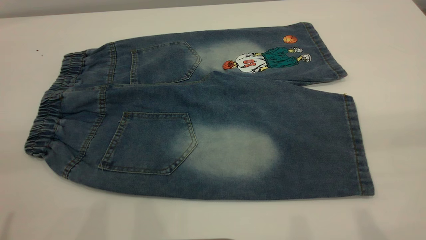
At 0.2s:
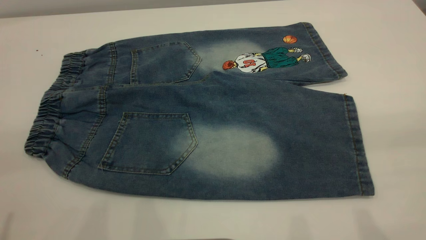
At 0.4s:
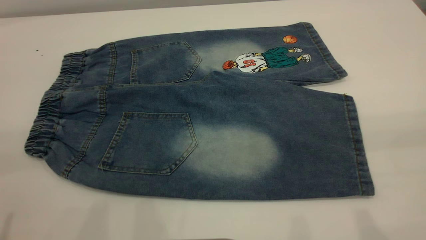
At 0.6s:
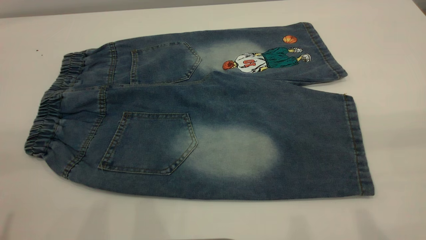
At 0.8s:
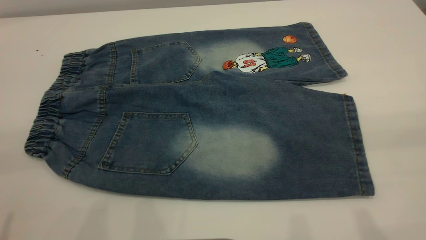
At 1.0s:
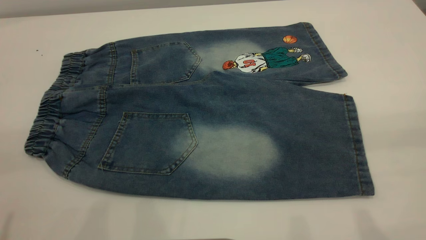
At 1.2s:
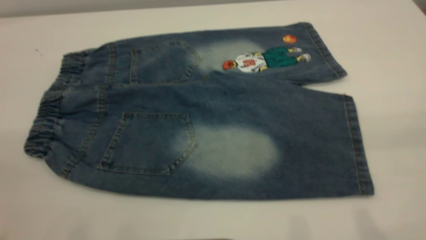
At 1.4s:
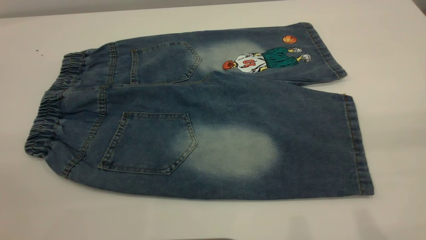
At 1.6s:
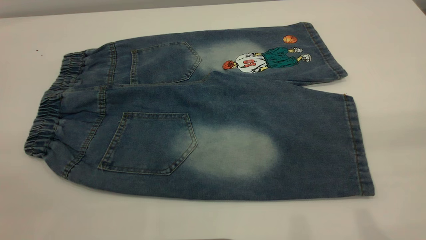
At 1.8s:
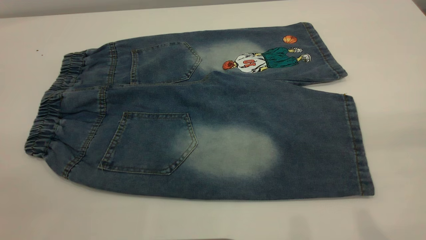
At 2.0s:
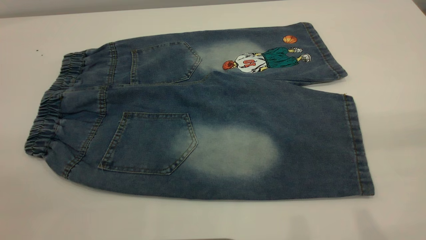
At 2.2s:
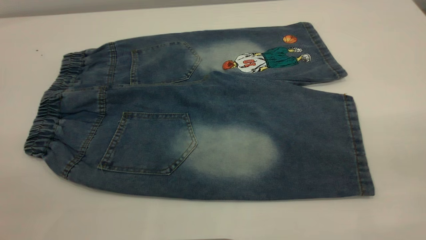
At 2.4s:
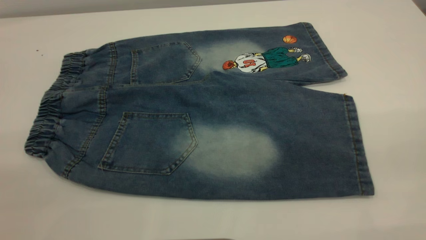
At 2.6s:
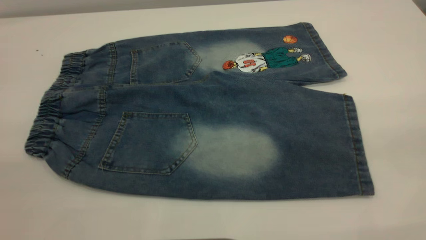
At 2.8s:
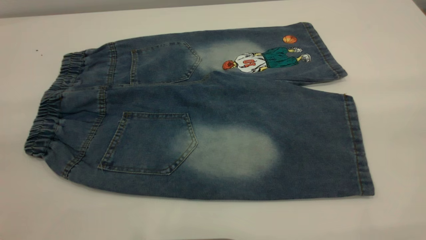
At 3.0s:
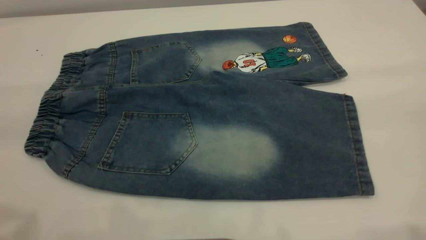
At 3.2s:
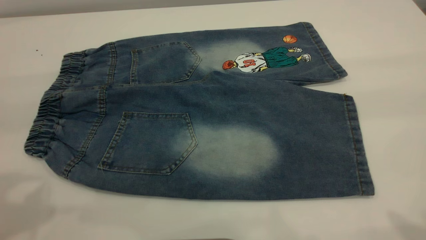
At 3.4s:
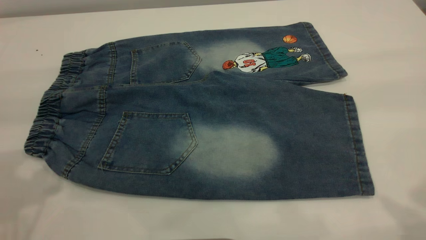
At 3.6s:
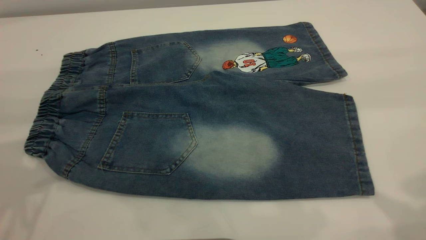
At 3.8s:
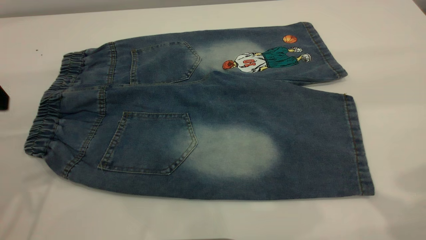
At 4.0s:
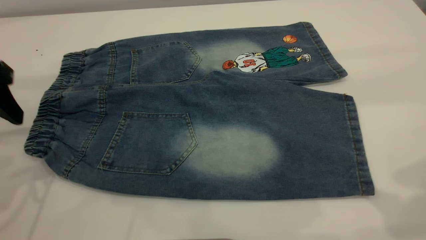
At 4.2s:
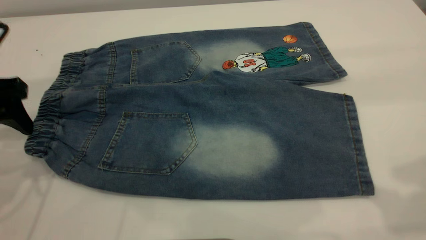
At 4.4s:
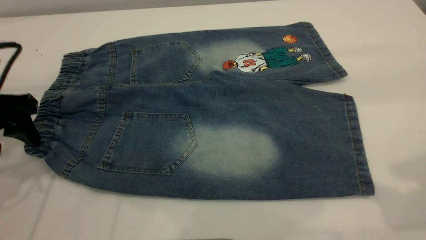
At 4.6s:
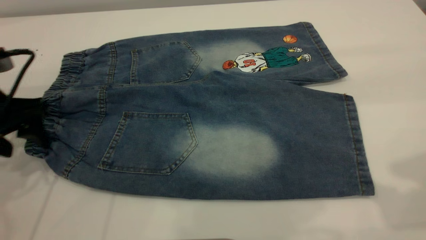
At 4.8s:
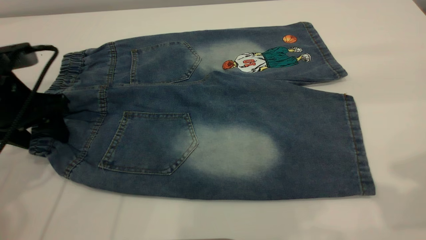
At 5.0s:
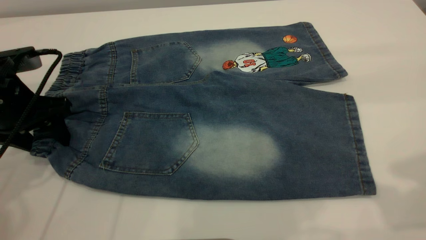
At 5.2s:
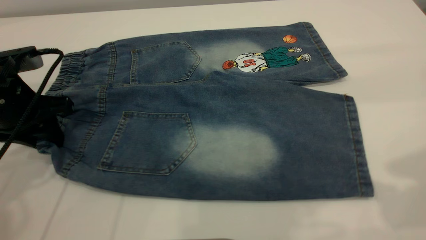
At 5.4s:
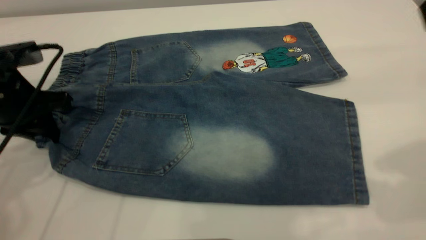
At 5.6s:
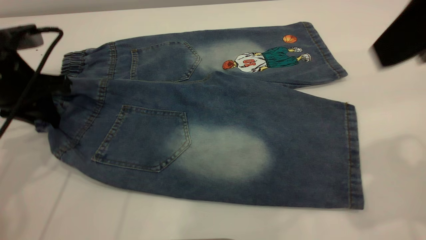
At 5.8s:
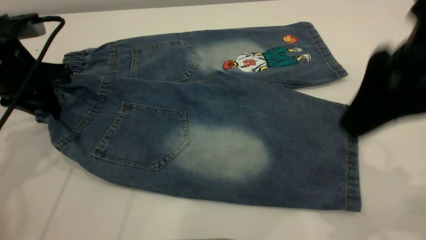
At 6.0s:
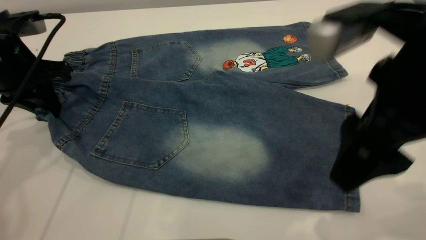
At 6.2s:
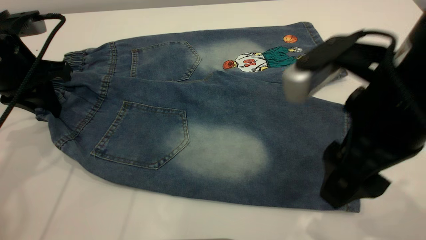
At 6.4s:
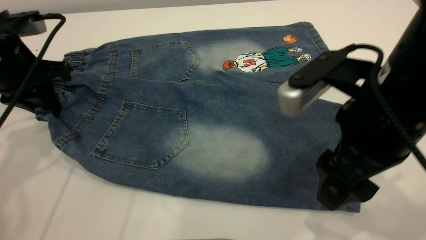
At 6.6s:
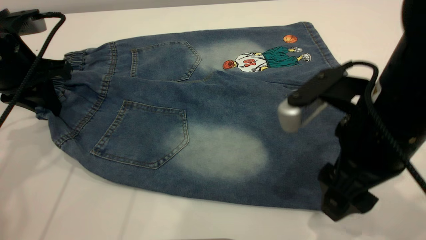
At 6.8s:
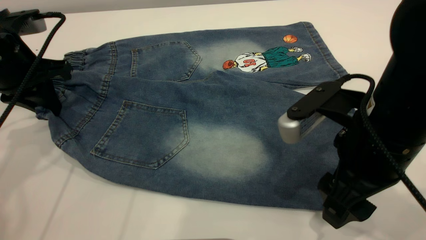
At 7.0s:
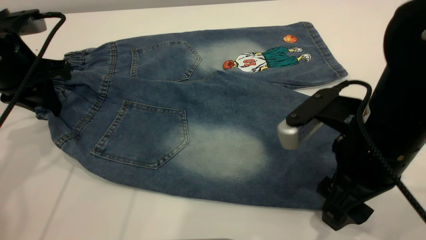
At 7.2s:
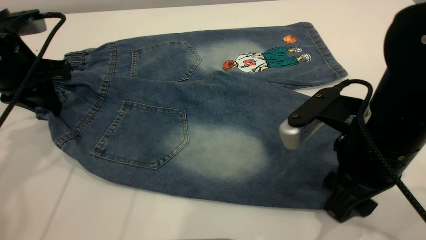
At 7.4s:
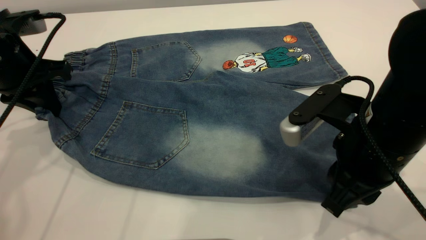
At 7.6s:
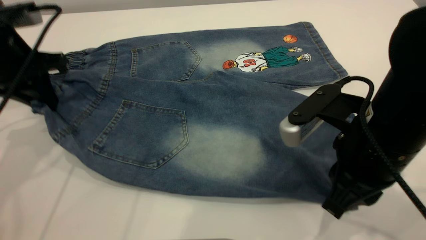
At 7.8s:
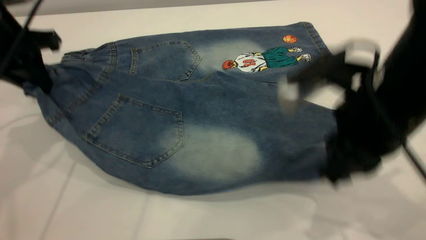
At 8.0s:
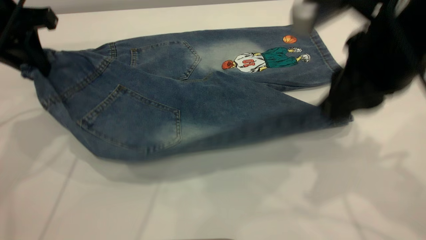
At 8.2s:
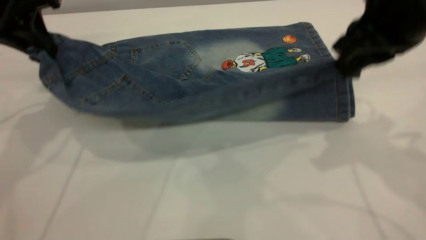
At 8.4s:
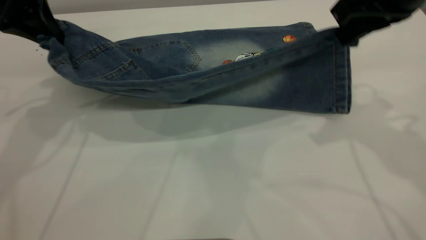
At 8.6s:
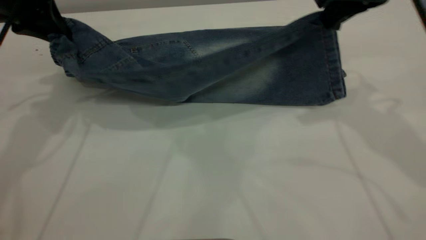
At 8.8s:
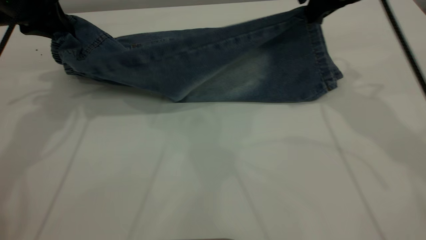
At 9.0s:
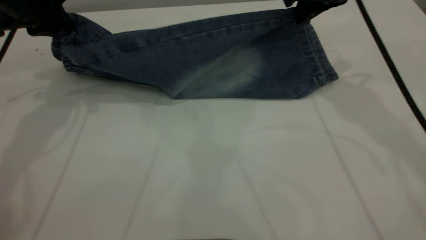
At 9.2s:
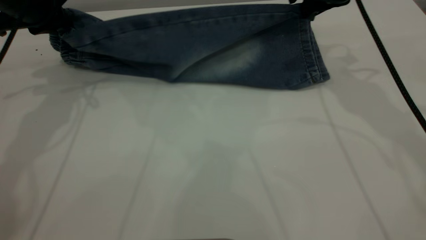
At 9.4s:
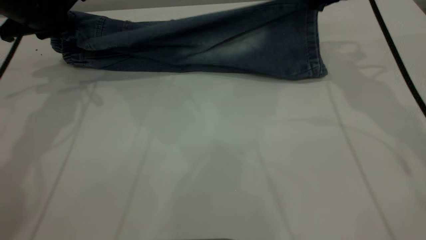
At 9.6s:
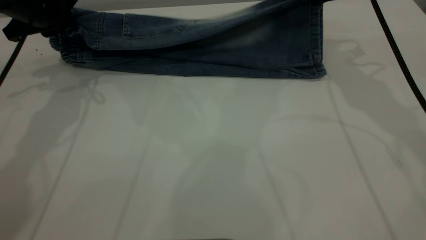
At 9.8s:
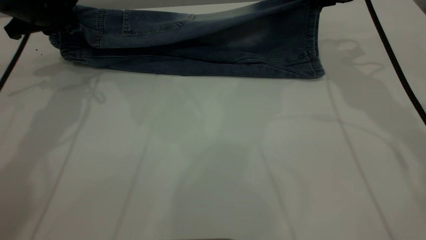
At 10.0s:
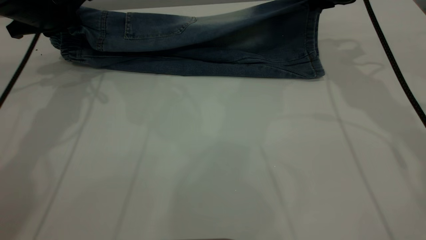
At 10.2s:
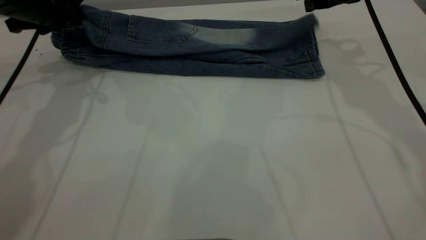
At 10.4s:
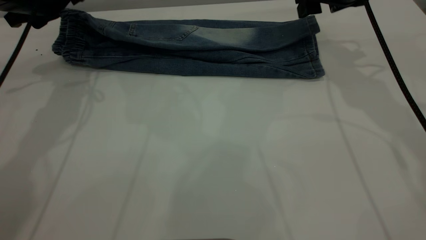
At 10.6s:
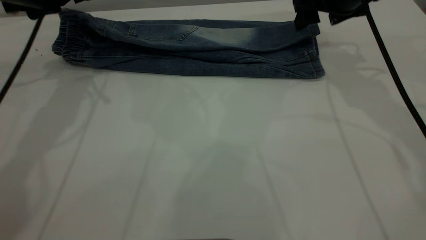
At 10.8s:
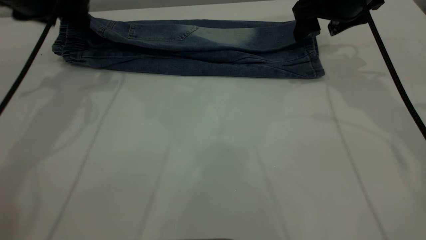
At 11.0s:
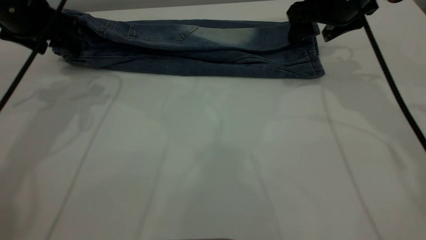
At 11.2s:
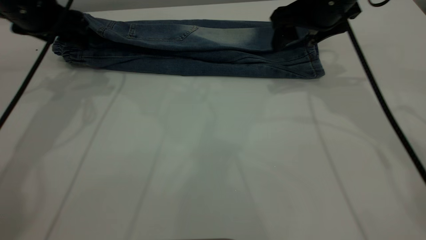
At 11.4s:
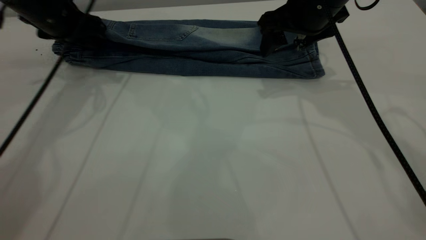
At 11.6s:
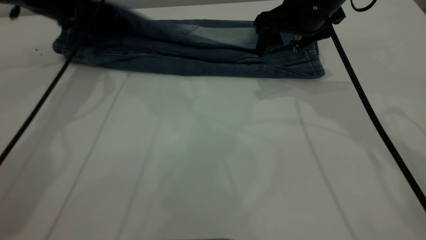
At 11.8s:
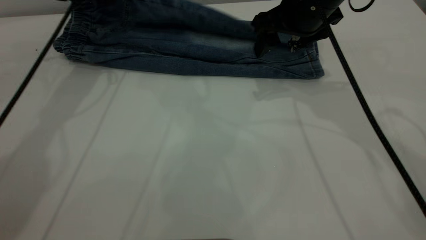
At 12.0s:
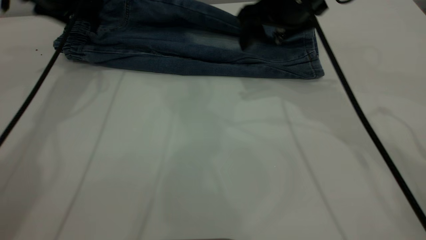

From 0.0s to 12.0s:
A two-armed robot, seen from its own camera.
Step, from 0.0s to 10.6s: Fold the bottom of the pants upward.
From 3.0s to 4.4s: The left gripper heads downward and forward, covering roughly 25 cm.
From 4.4s to 6.0s: The right gripper is displaced downward and to the left by approximately 15 cm, while the left gripper shifts approximately 5 cm forward, and closes.
From 6.0s to 7.6s: The right gripper travels downward by some 10 cm, and closes.
From 7.6s to 9.0s: The left gripper shifts some 10 cm forward. The right gripper is displaced forward and upward by roughly 25 cm.
From 9.0s to 10.4s: The left gripper opens. The right gripper opens.
From 10.4s to 12.0s: The right gripper heads to the left, covering some 10 cm.

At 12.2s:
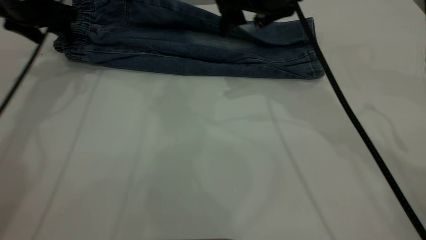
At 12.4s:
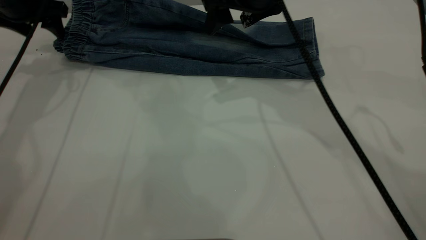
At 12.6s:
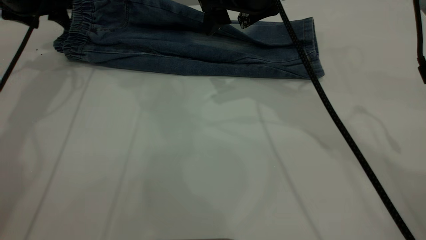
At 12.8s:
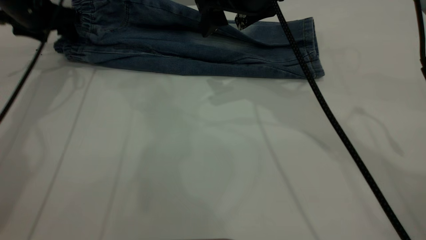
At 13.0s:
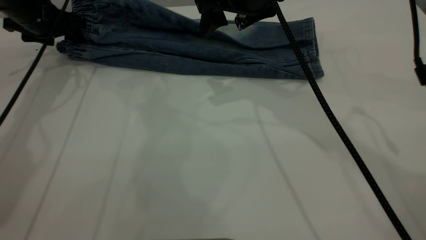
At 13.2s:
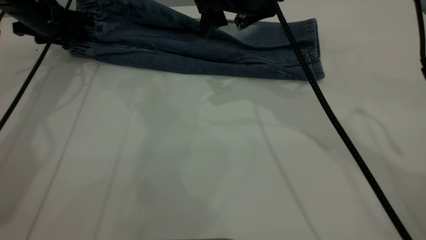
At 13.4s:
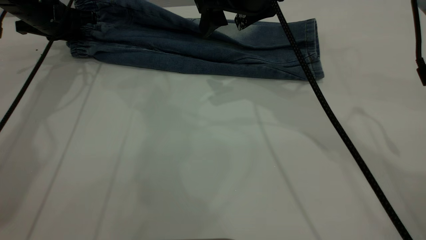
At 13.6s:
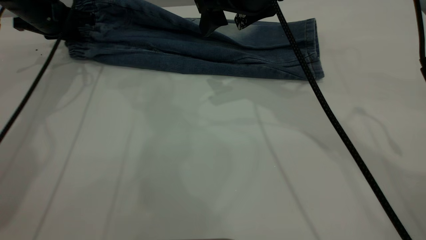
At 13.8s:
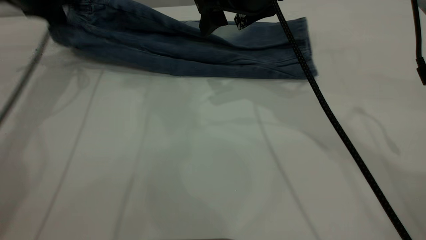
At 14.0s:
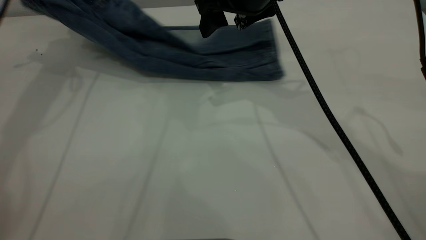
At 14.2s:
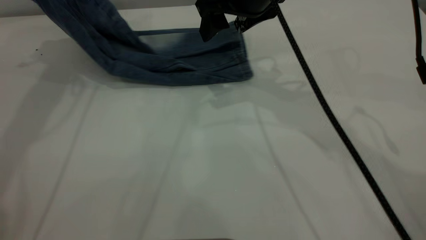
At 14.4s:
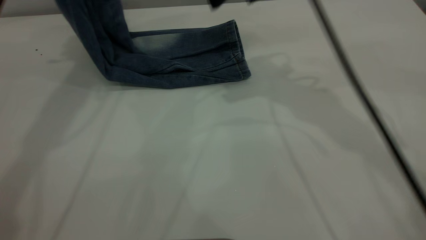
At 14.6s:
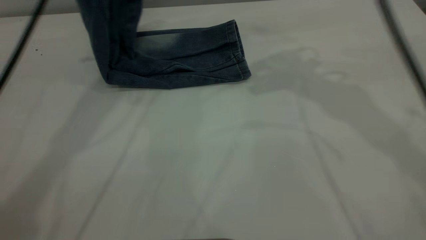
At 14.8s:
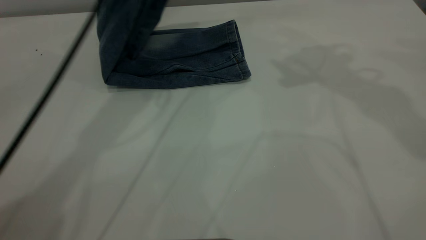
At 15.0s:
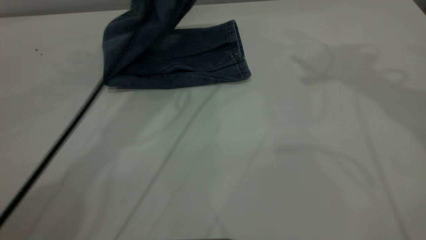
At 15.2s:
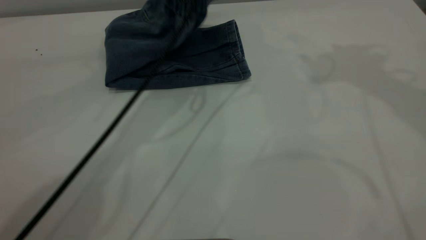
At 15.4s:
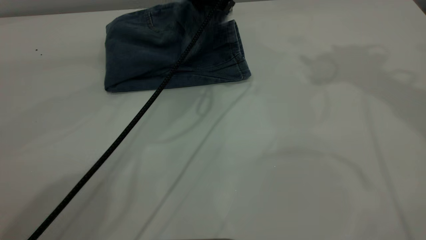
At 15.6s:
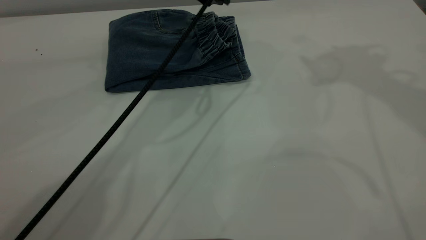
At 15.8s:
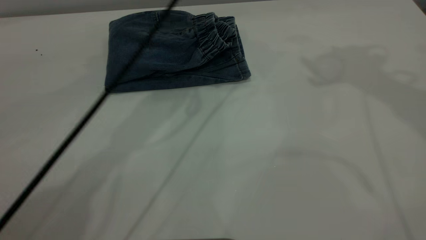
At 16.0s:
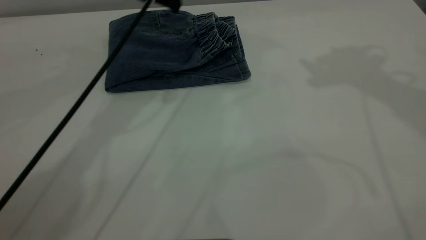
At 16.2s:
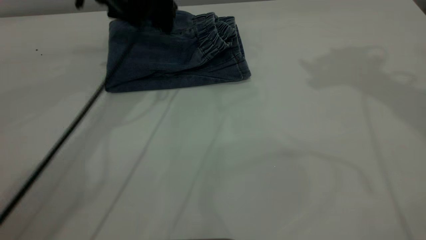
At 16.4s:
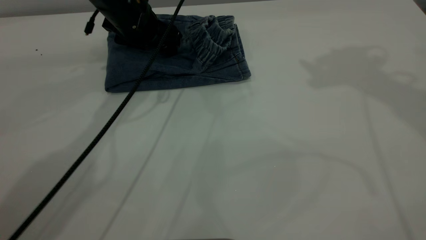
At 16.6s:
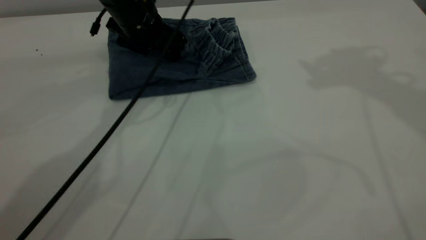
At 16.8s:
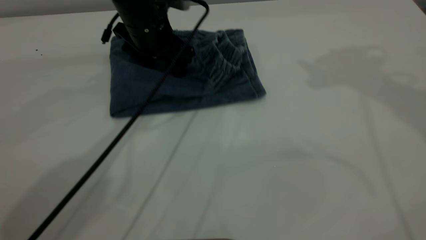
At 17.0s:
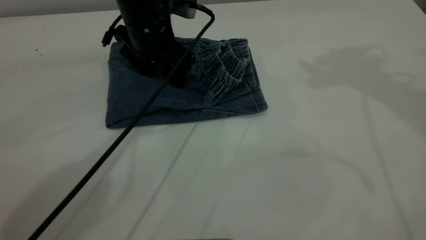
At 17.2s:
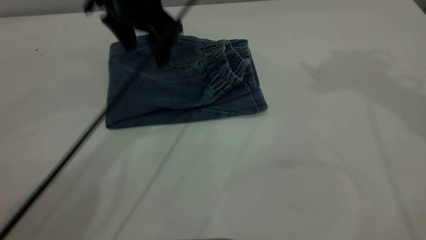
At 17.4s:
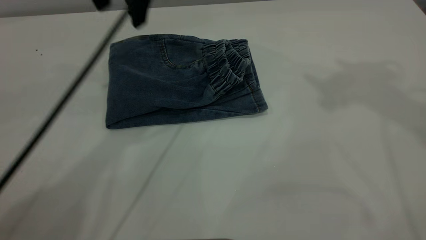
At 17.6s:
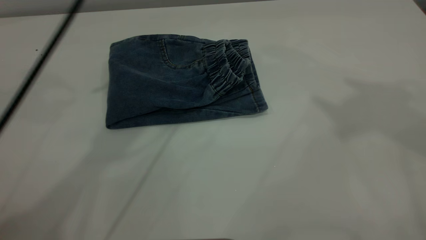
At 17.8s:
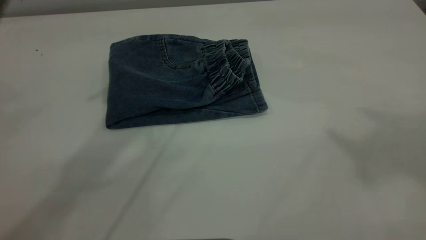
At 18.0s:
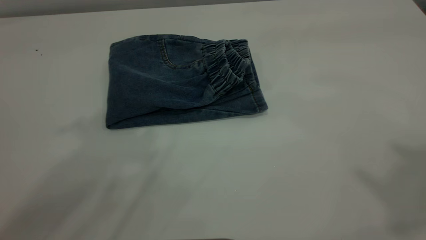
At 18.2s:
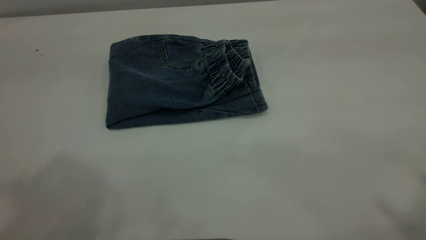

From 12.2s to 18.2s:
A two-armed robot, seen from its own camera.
Step, from 12.2s to 15.8s: Fold the pants from left to right.
From 12.2s to 13.8s: The left gripper closes.
From 13.8s to 15.2s: The right gripper moves upward and to the right, some 25 cm; the left gripper goes about 25 cm to the right.
From 15.2s to 16.6s: The left gripper travels downward and to the left by approximately 10 cm, and opens.
From 16.6s to 18.2s: The left gripper shifts roughly 50 cm upward and backward. Meanwhile the right gripper is displaced backward and upward by about 30 cm.
